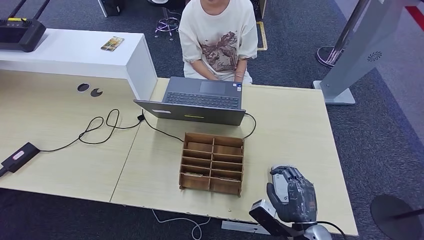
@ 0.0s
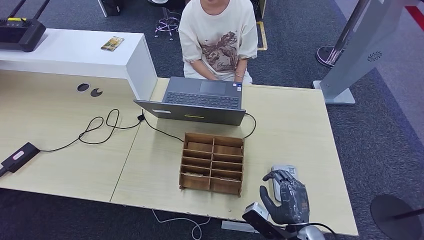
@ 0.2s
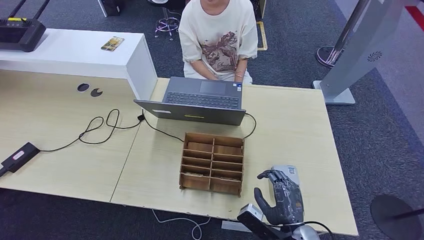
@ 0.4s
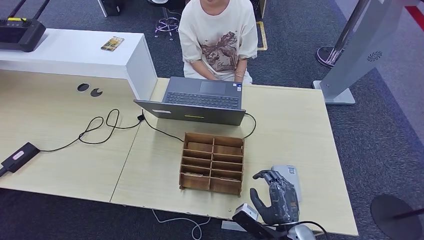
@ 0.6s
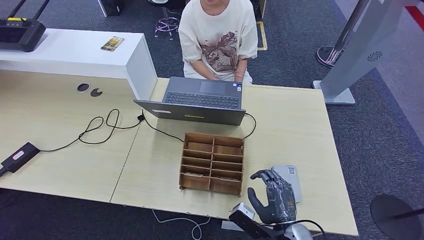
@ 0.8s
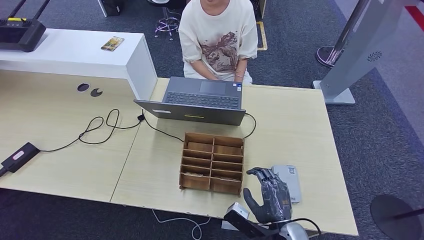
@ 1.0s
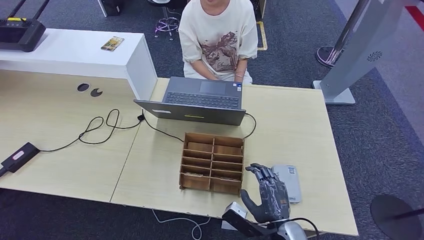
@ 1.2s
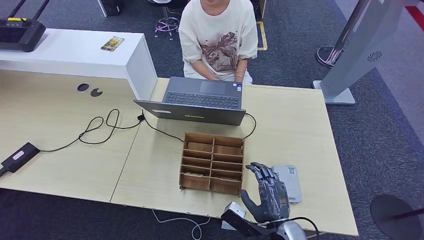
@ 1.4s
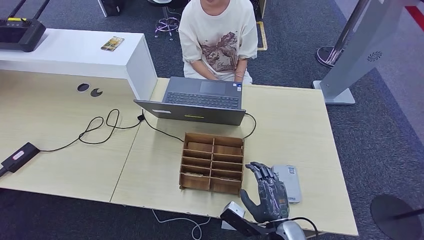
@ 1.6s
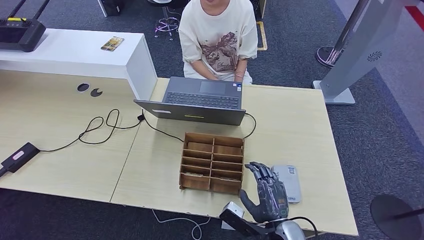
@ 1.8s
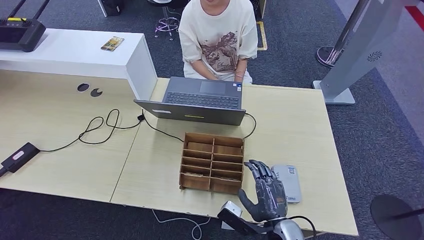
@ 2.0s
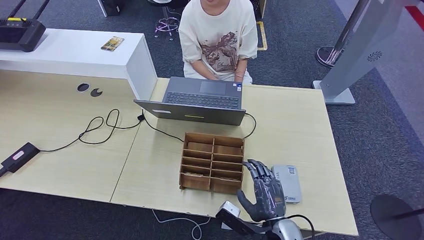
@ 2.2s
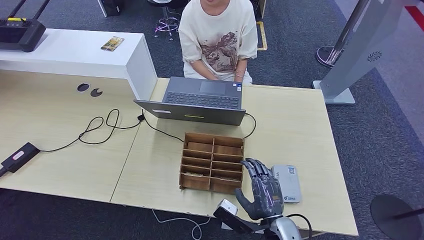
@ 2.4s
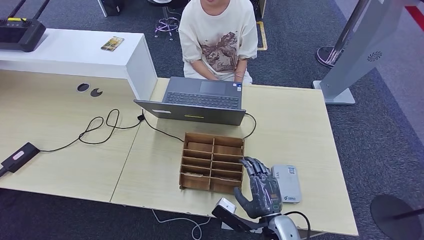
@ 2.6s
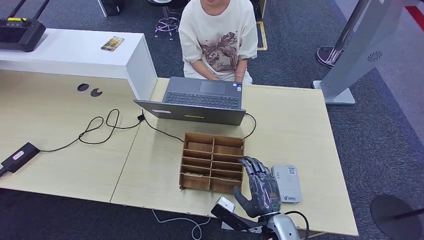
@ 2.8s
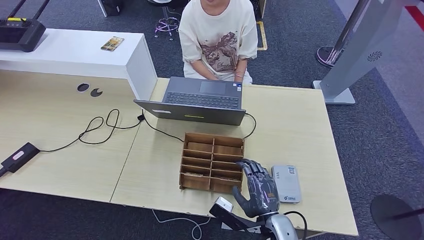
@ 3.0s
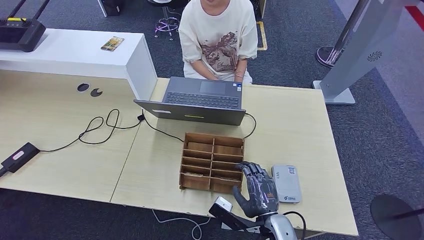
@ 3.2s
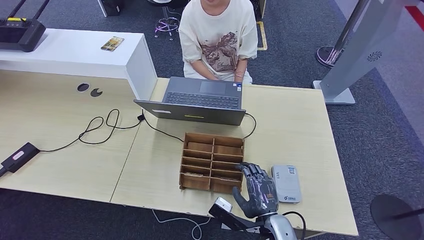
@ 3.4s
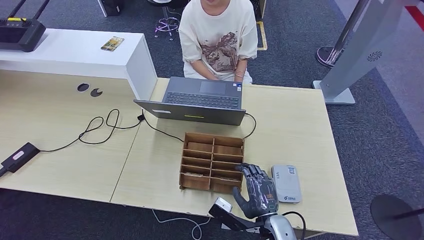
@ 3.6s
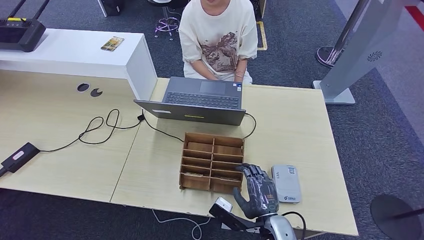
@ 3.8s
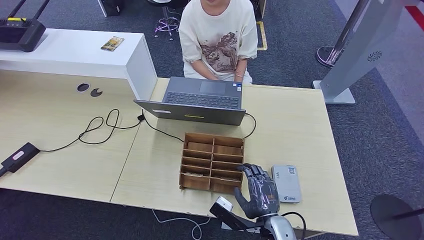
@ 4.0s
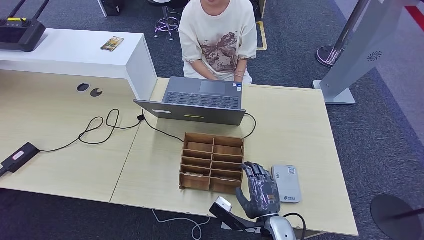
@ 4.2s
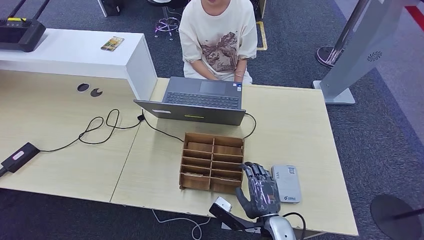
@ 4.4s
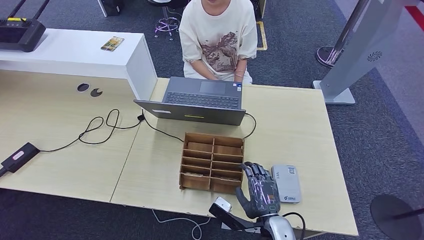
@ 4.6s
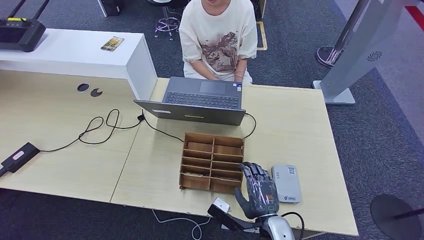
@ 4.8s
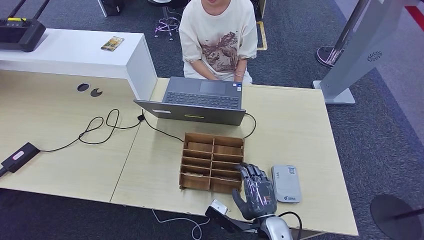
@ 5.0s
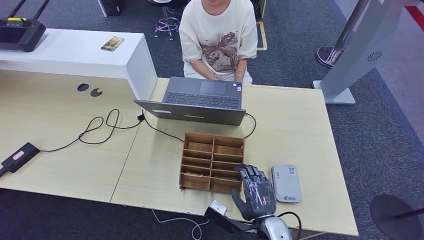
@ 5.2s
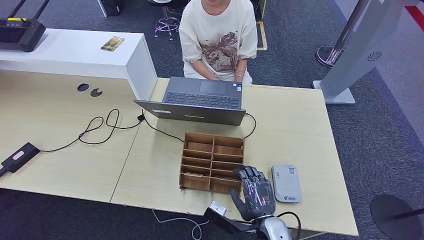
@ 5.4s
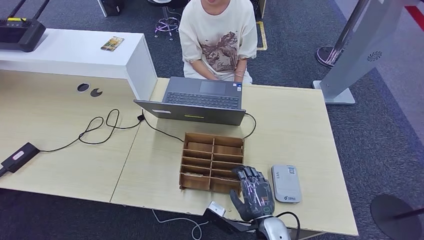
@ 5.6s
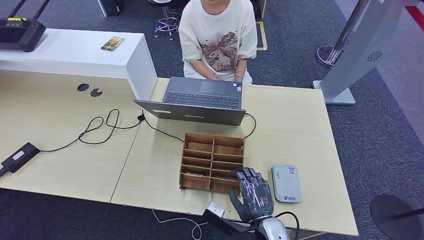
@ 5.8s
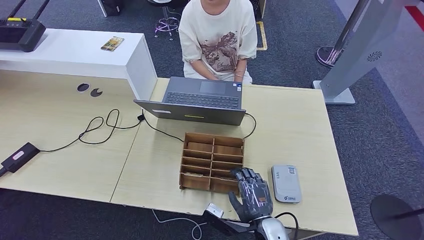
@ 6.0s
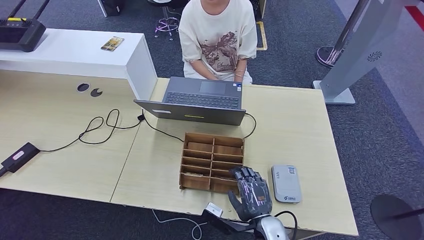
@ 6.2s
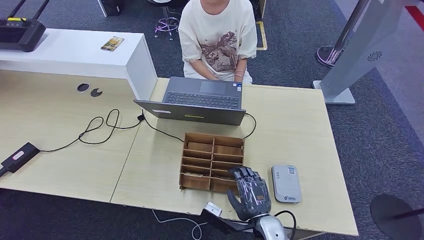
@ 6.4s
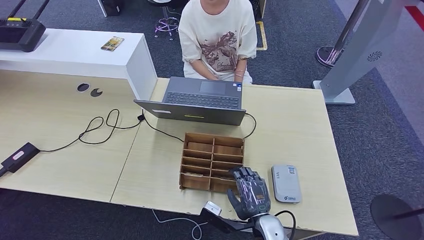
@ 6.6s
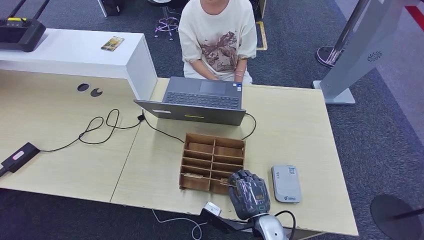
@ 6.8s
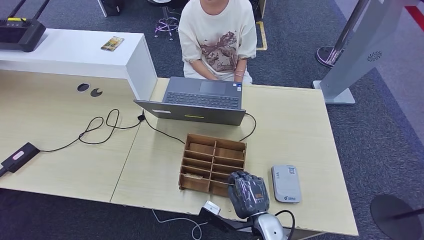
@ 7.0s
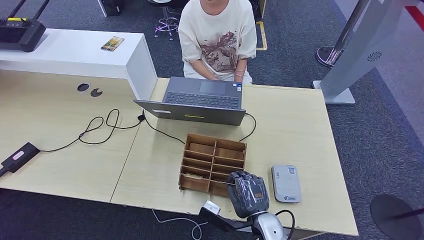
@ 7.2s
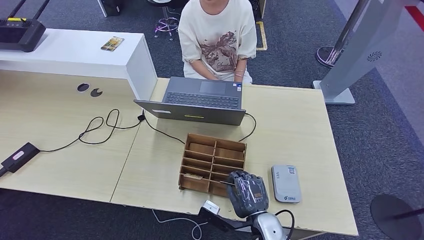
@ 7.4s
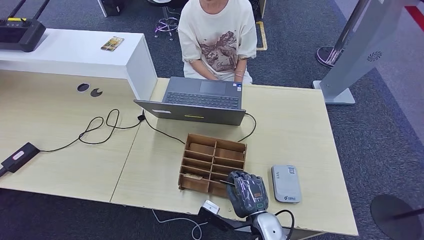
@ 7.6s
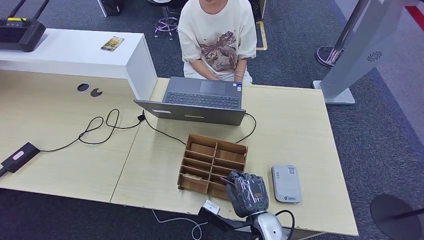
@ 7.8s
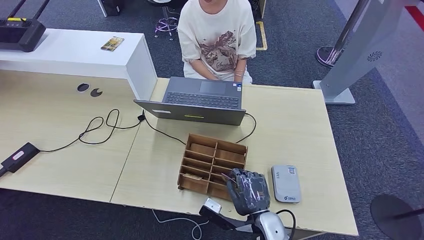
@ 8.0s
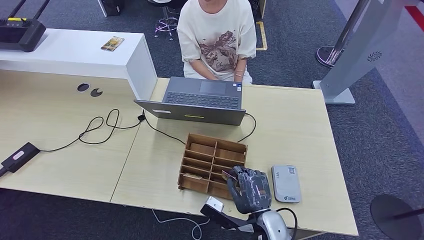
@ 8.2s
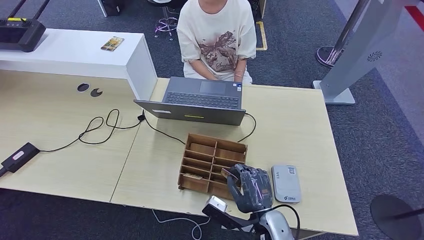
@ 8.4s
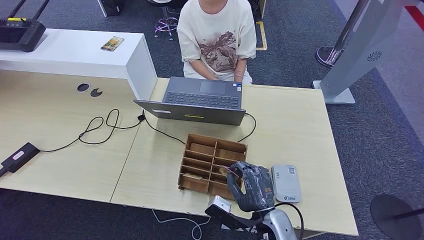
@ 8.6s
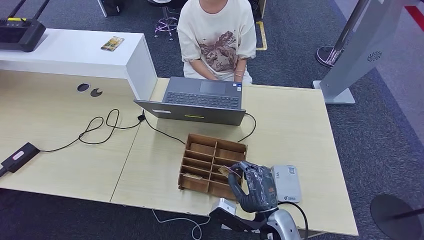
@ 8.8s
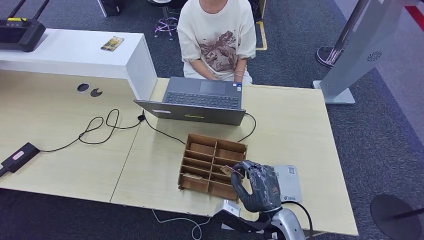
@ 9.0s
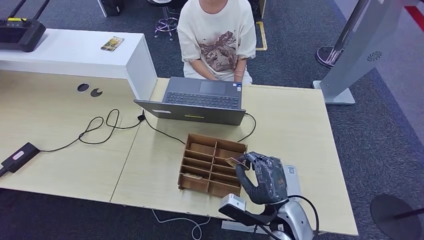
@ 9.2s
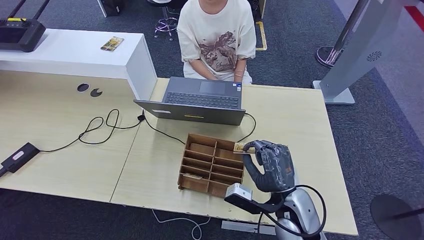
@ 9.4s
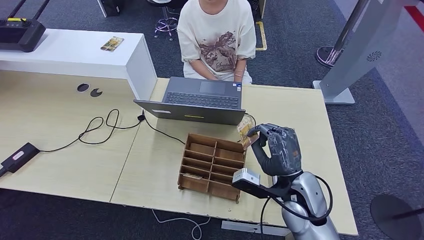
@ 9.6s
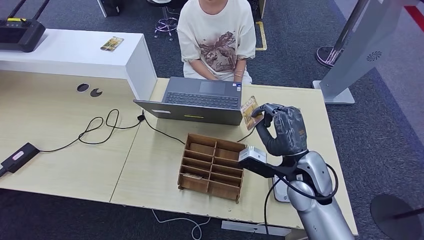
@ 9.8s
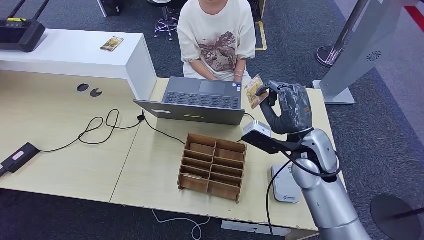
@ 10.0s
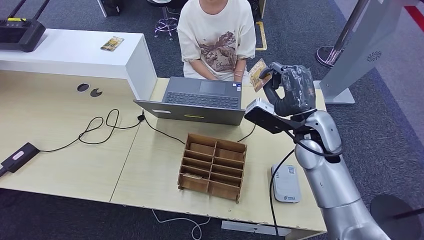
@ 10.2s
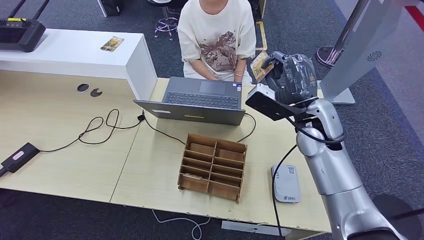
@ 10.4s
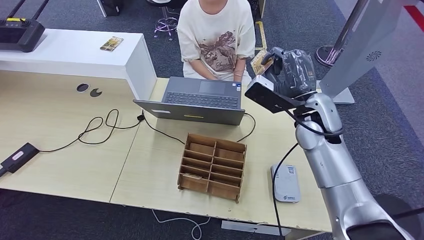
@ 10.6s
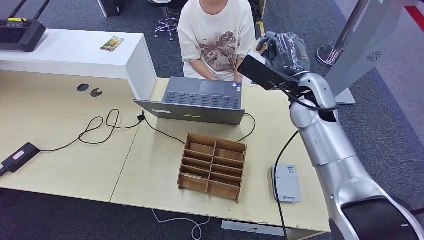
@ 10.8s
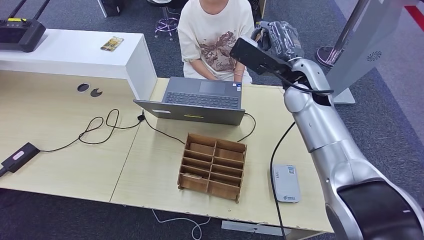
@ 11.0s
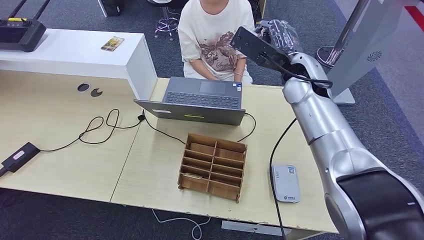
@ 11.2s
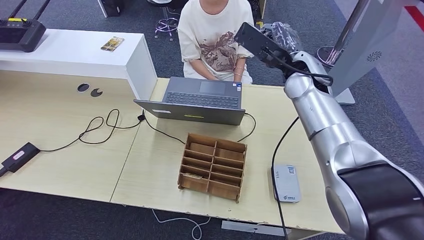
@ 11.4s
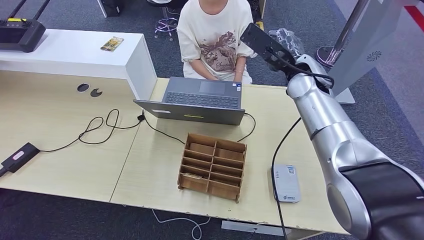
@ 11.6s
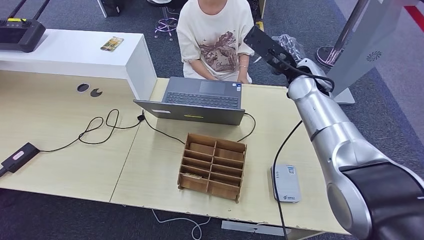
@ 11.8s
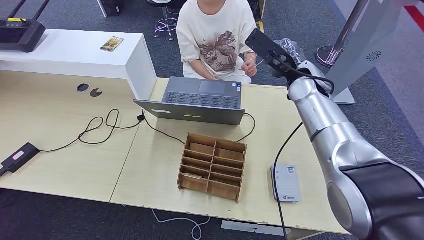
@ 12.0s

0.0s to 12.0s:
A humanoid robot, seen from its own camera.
Step, 6.6s to 10.2s: Pick up the room key from the key card box.
0.0s to 1.6s: The right hand moves to the left, some 5 cm.
1.6s to 4.4s: The hands make only small movements.
4.4s to 6.0s: Both hands stay put.
6.0s to 7.6s: Neither hand changes place.
9.0s to 10.4s: The right hand is displaced forward and upward by some 25 cm.
10.4s to 12.0s: The right hand goes some 10 cm forward.

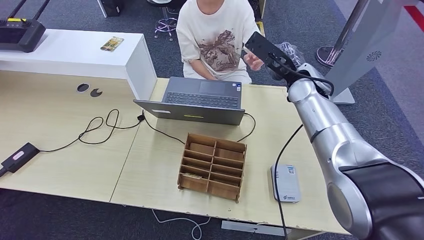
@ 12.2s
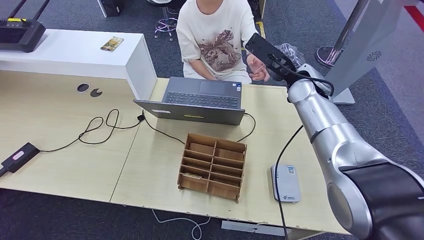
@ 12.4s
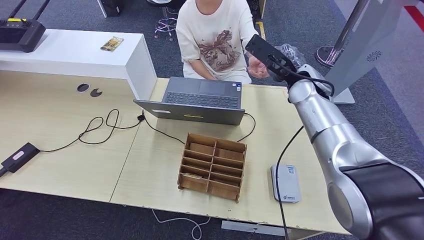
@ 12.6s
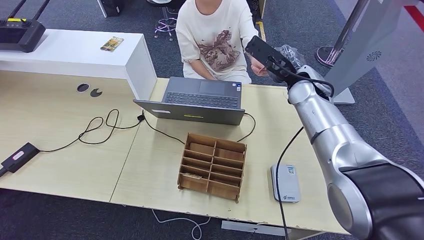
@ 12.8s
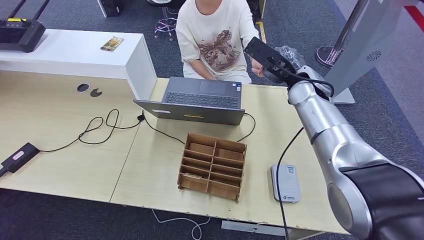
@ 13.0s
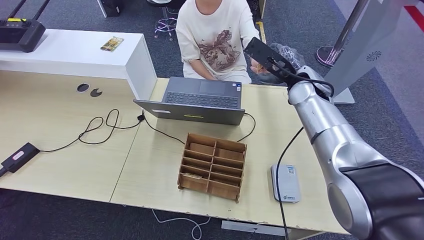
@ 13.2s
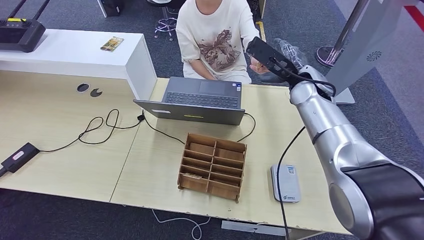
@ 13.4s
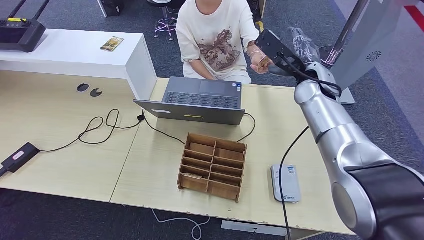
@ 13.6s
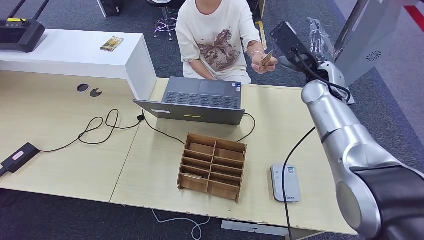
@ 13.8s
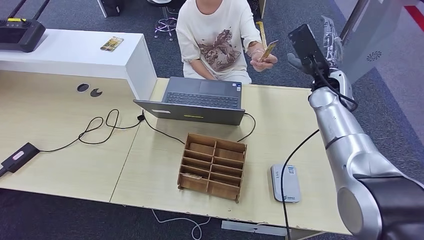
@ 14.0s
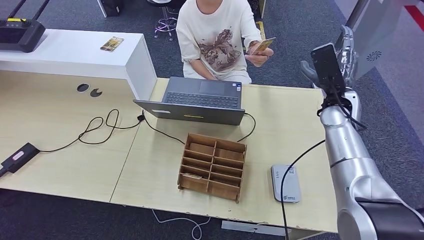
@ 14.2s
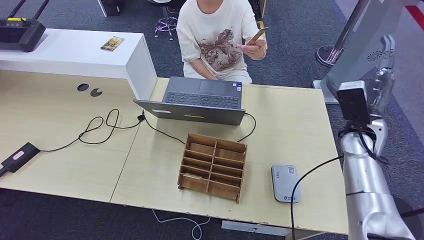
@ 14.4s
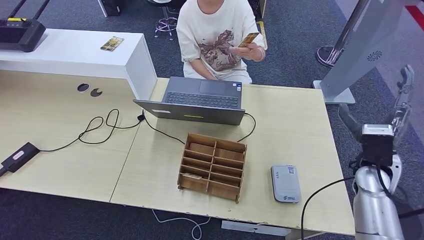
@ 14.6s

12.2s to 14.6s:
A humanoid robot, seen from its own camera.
Step, 12.2s to 14.6s: Hand the room key to the person.
12.2s to 13.4s: The two hands keep their place.
13.4s to 14.6s: The right hand shifts some 20 cm backward, to the right and downward.

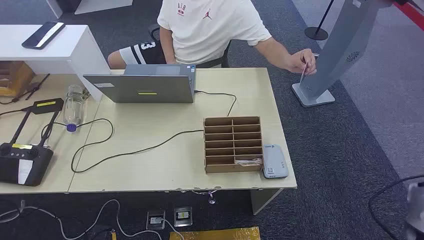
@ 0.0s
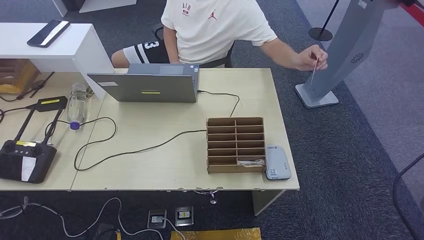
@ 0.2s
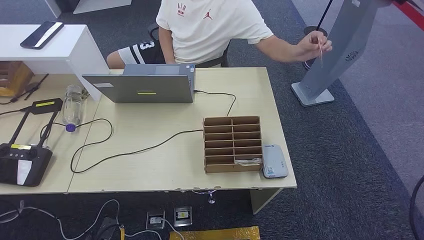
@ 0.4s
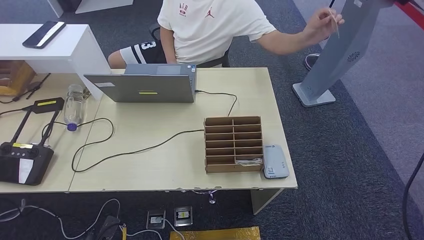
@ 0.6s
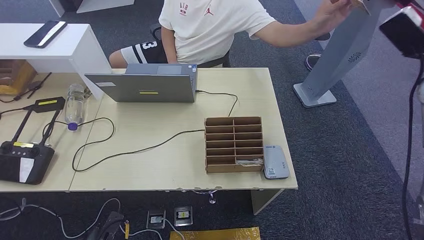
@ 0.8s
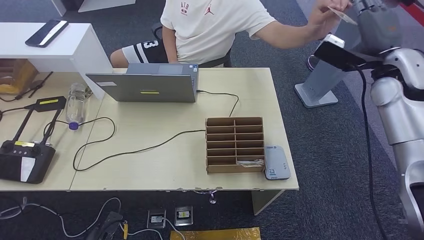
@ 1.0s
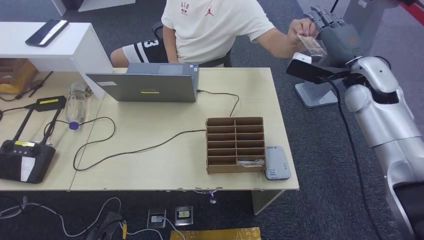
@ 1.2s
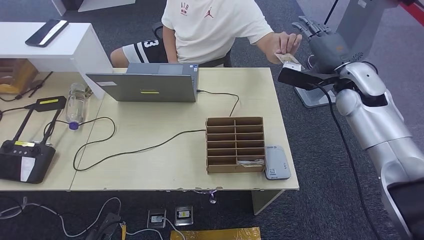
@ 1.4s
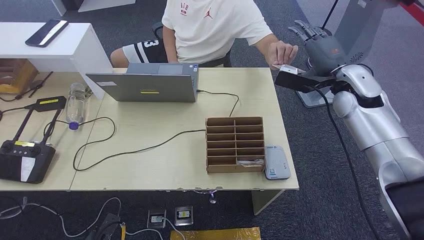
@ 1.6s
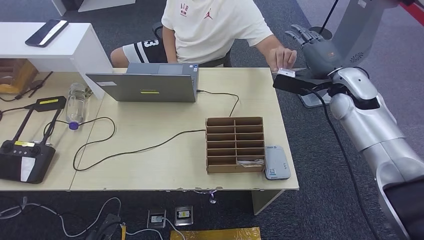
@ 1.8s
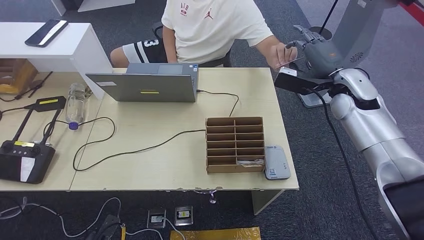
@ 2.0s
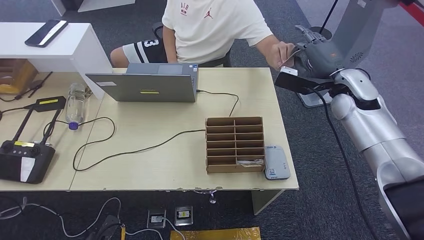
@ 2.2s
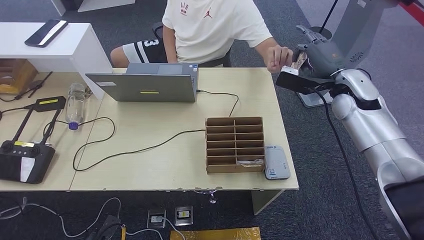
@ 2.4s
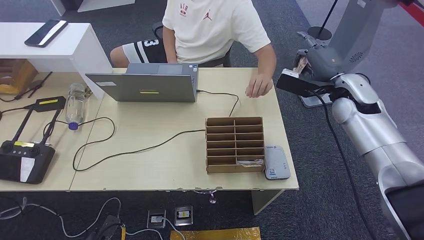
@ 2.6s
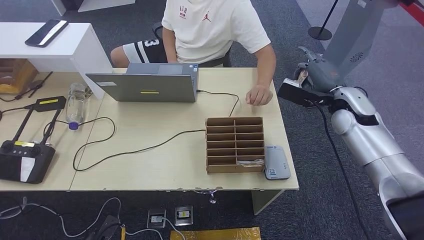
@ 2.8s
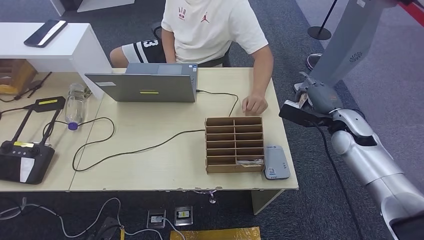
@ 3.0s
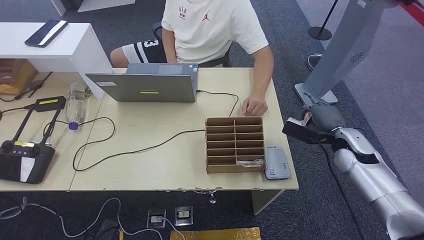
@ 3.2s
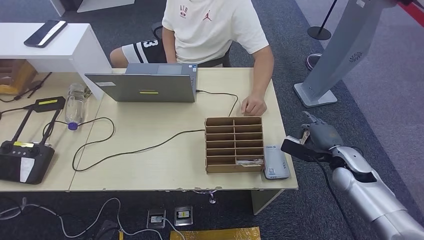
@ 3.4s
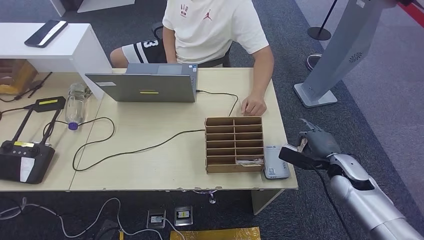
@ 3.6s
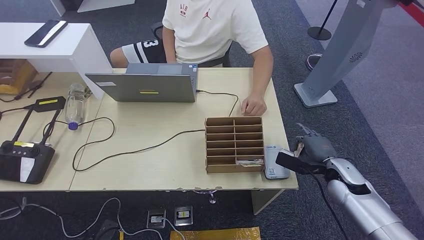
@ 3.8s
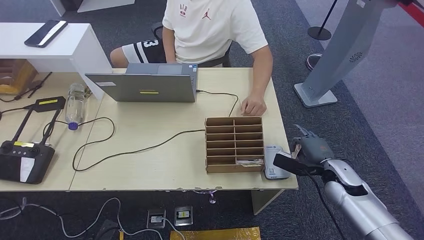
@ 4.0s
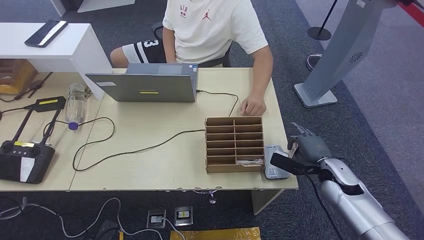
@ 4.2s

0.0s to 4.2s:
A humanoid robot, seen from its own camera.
Step, 0.0s to 2.6s: Take the ID card from the person's hand.
1.4s to 2.8s: The right hand travels downward by approximately 5 cm.
2.8s to 4.2s: The right hand heads downward and backward, covering some 20 cm.
